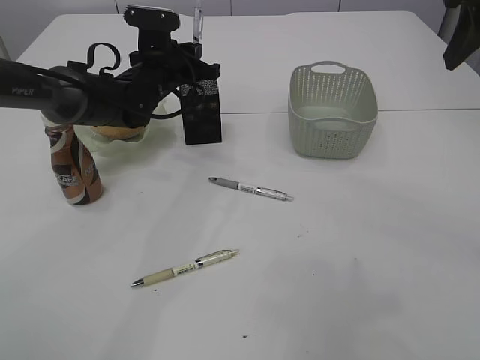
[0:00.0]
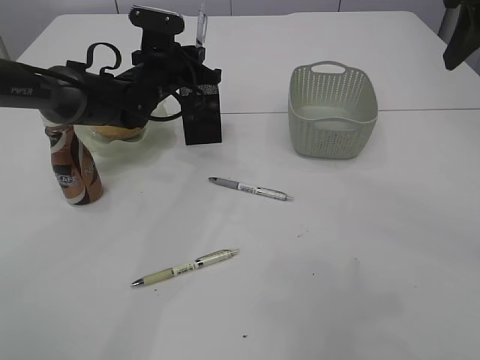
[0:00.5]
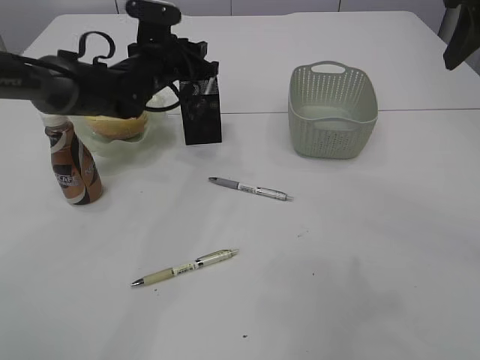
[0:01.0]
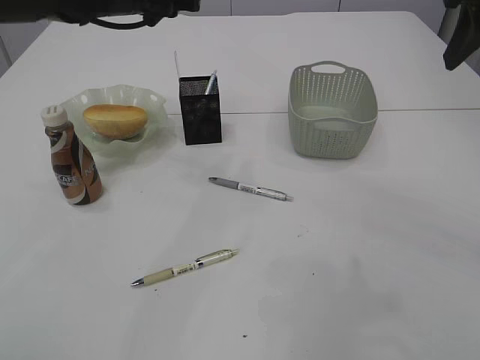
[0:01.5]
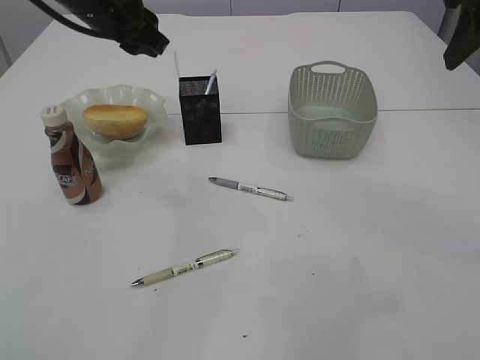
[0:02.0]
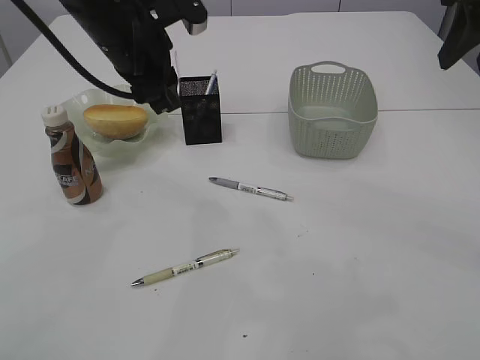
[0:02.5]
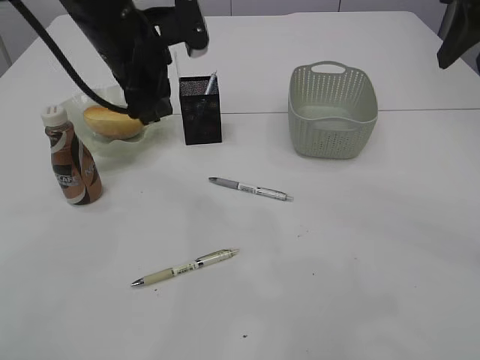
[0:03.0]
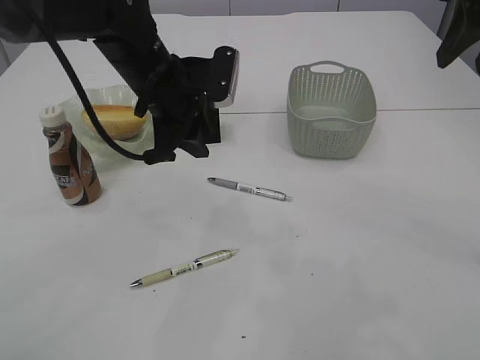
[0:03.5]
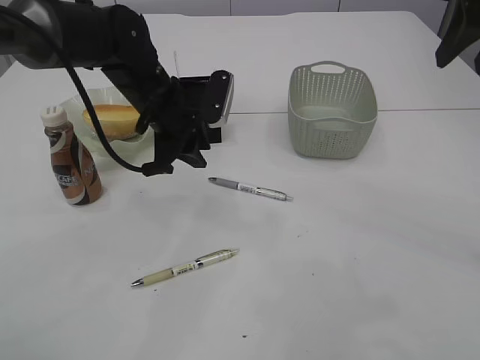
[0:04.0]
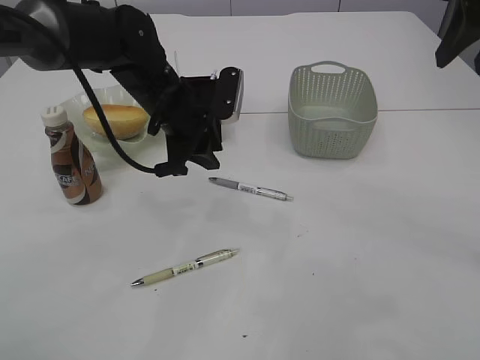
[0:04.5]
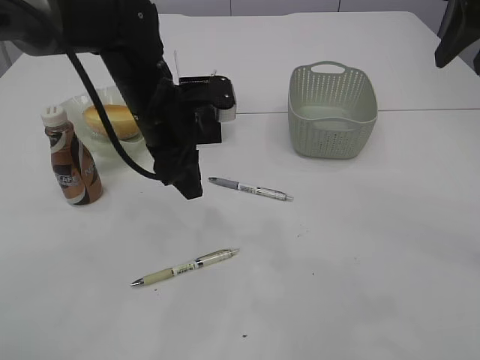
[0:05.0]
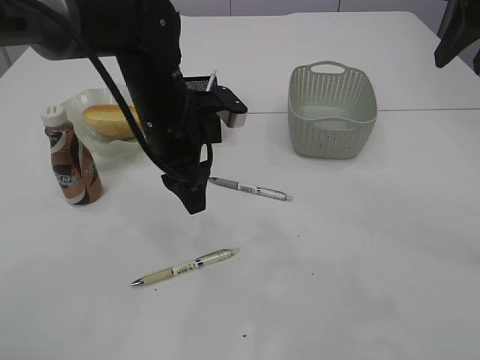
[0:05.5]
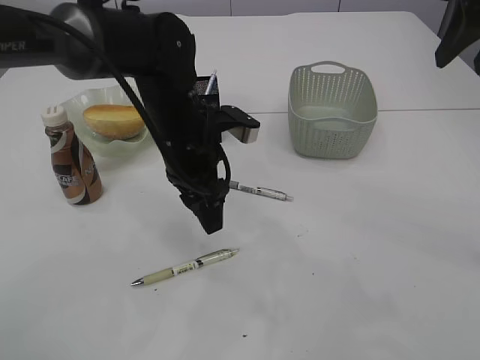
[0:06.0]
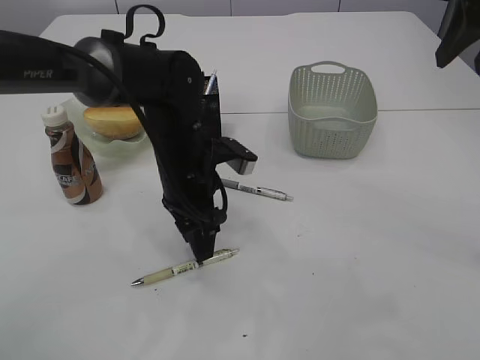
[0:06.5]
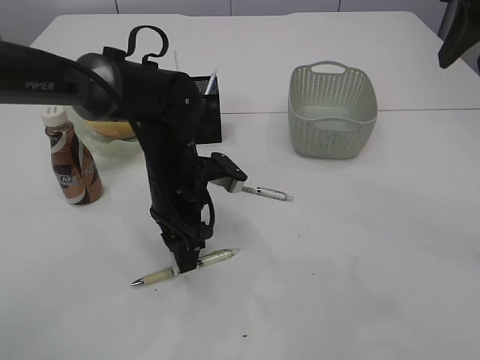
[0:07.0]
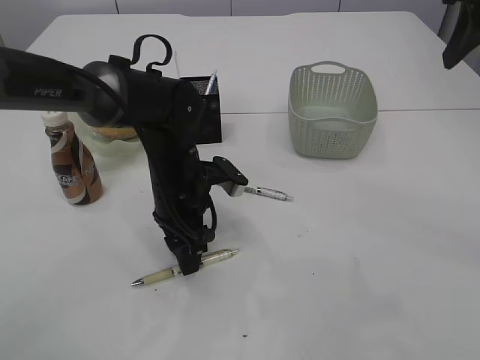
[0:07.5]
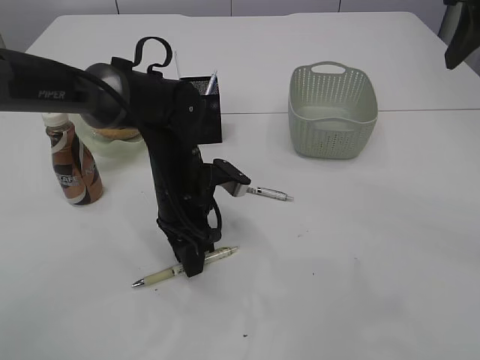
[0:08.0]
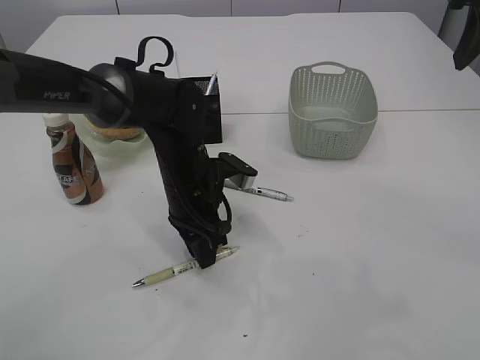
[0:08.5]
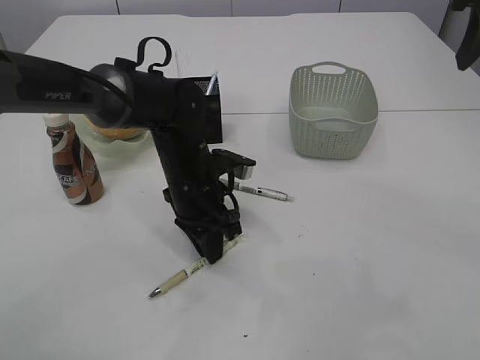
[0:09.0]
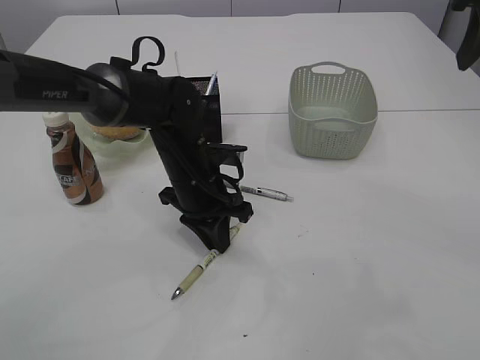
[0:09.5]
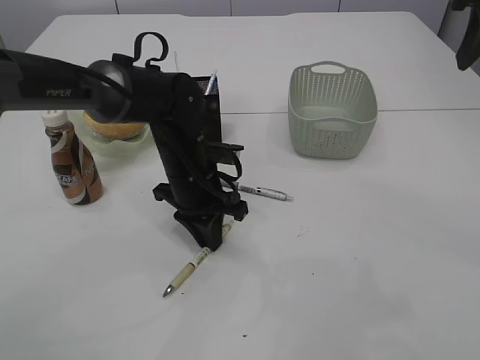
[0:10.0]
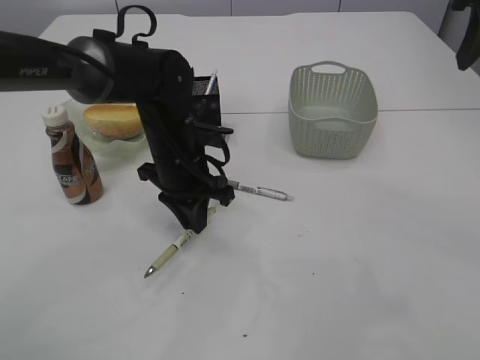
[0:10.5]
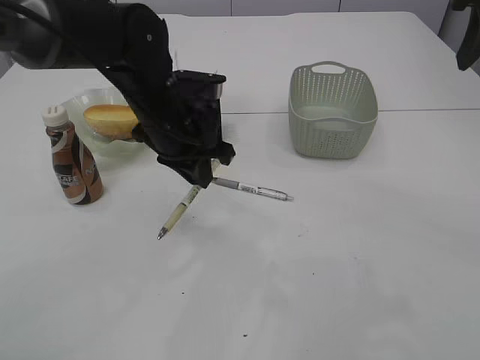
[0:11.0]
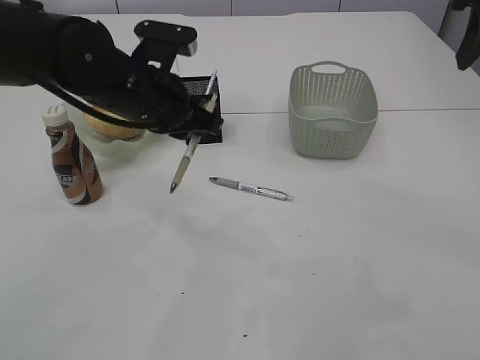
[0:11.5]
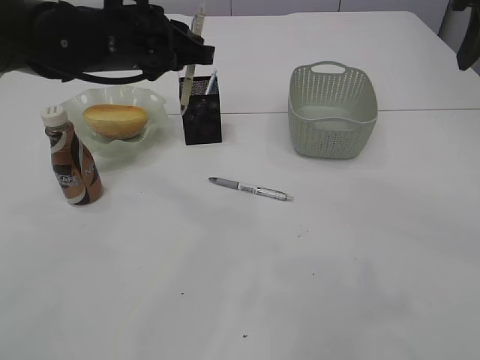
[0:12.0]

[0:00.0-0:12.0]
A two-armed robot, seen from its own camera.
Step, 0:01.5 to 0:11.5: Pick up the pen with left arm.
0:00.0 to 0:02.0: The left gripper heads upward and backward, covering some 15 cm, and opens up.
0:02.0 to 0:04.0: The left gripper shifts about 15 cm downward.
0:04.0 to 0:06.0: The left gripper is displaced backward by approximately 5 cm.
0:06.0 to 0:08.0: The left gripper heads downward, covering approximately 5 cm.
0:08.0 to 0:10.0: The left gripper closes its fingers.
0:10.0 to 0:12.0: The left gripper travels upward by roughly 15 cm.

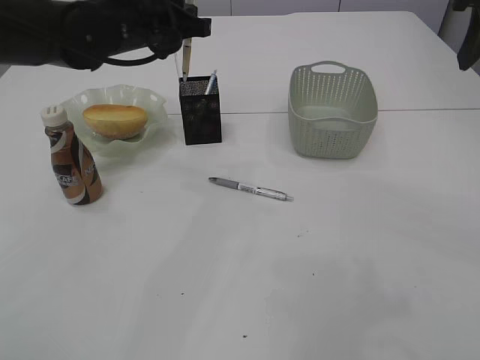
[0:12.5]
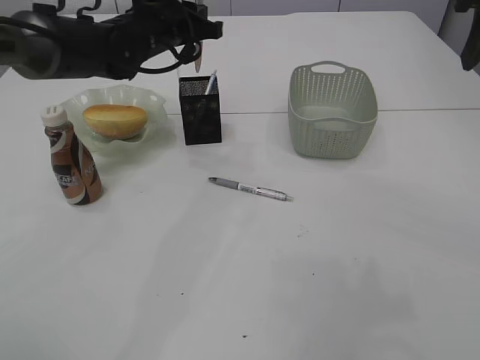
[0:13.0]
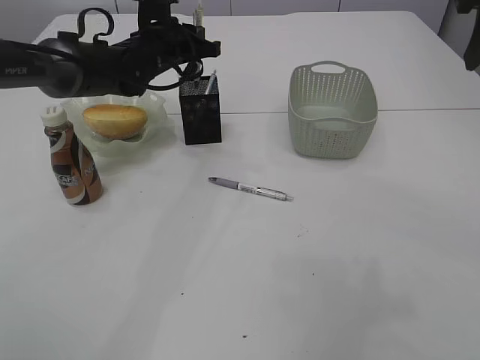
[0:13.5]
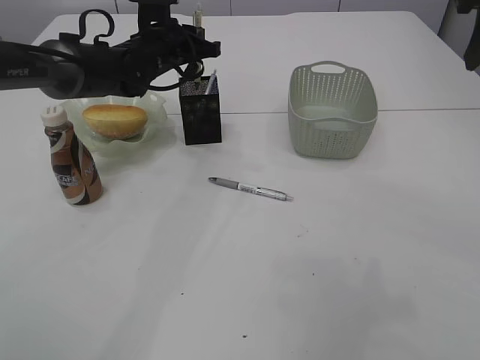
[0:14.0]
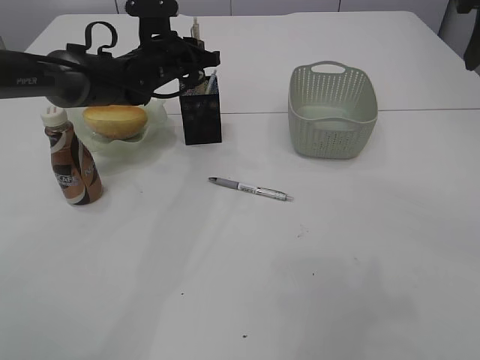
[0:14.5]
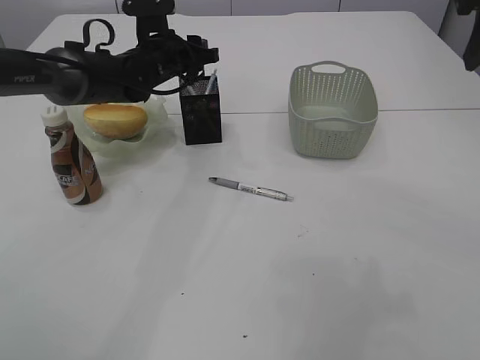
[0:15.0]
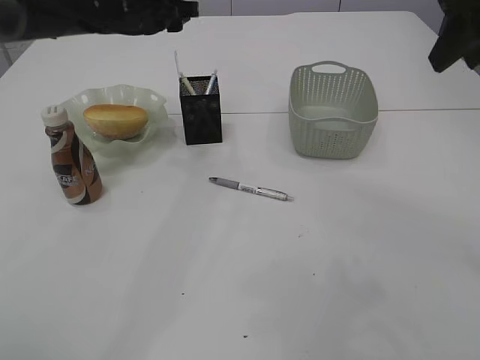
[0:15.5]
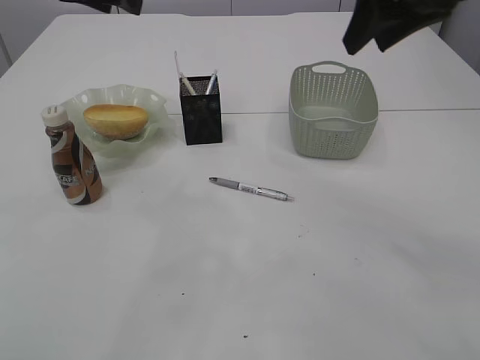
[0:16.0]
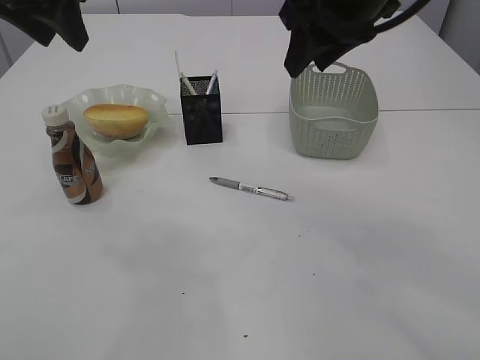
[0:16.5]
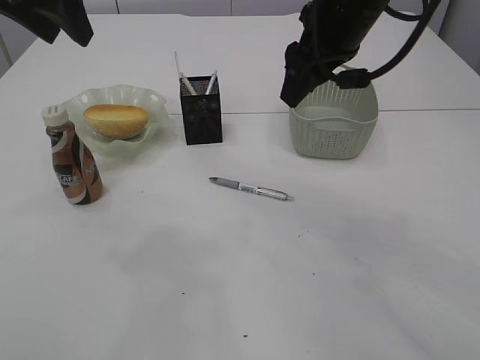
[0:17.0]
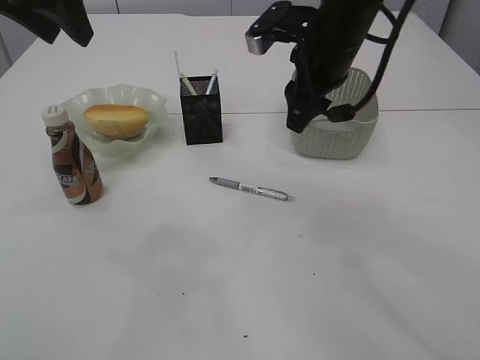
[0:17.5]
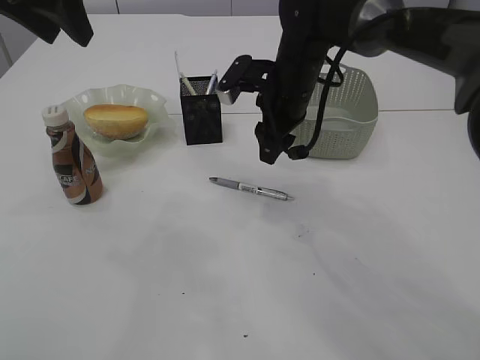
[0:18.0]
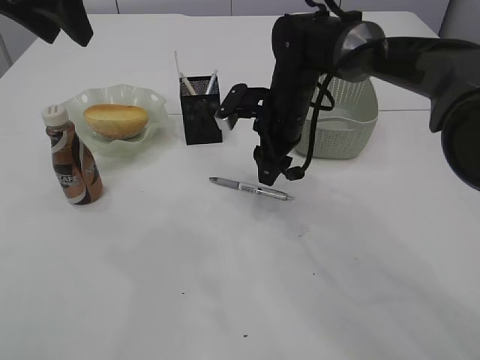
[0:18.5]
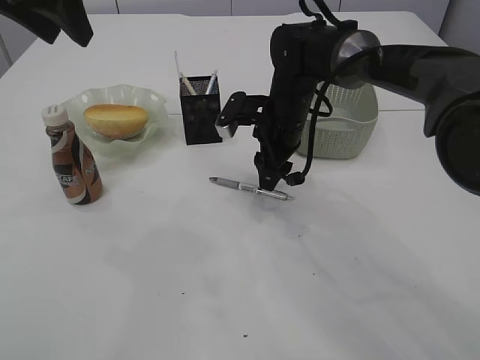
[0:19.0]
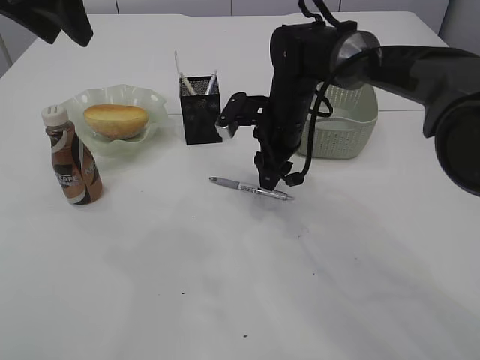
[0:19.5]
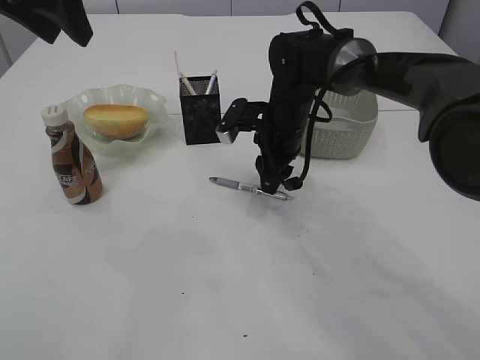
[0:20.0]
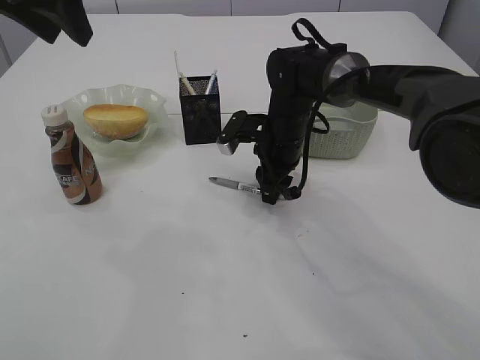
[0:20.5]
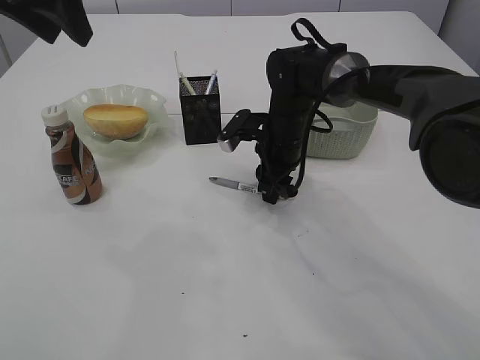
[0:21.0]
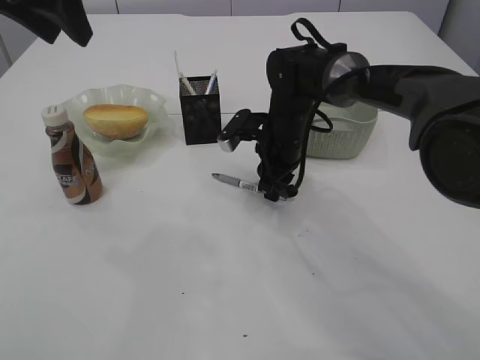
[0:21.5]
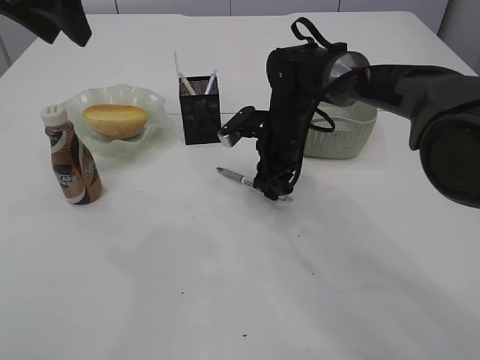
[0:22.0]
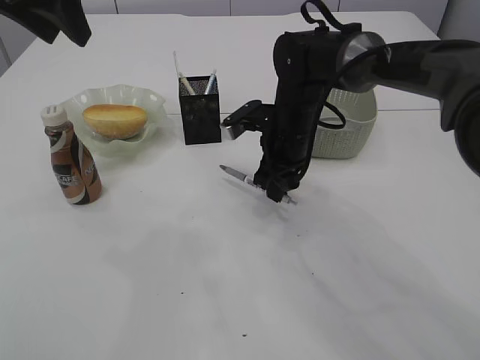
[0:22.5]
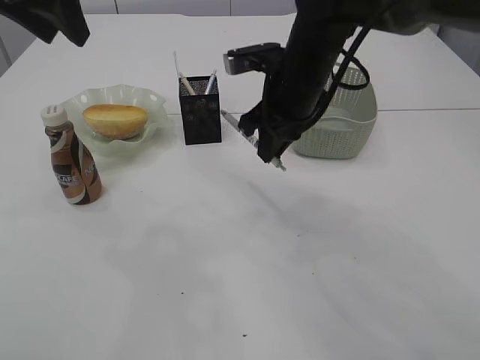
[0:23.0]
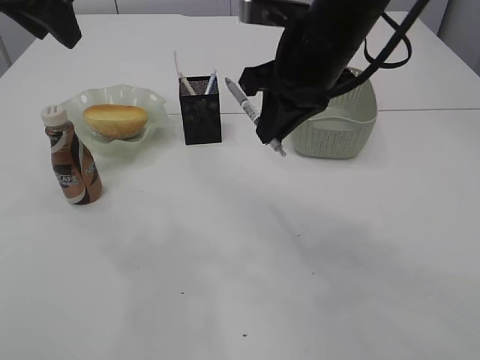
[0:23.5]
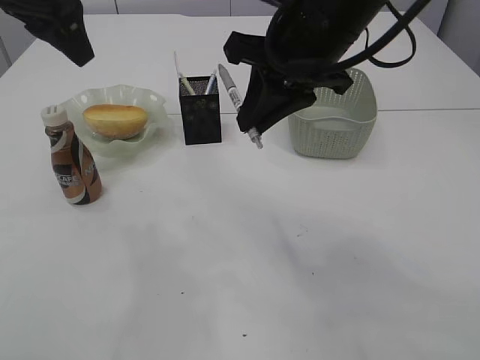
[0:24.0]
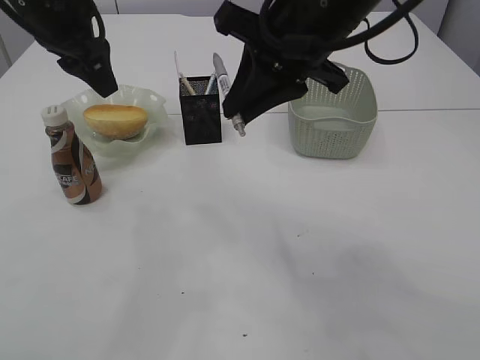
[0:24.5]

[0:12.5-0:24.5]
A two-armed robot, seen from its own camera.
Step, 0:12.5 to 0:15.0: Place the pen into the pen holder.
Step, 0:15.5 to 0:22.5: Pick up the pen with right arm.
0:12.5 to 0:14.5: The left gripper moves downward and forward, roughly 10 cm.
0:14.5 to 0:16.5: The left gripper is displaced upward, backward and to the left by roughly 25 cm, and opens up. Meanwhile the right gripper moves to the left, about 15 cm.
0:16.5 to 0:18.5: The right gripper shifts about 20 cm downward and forward.
0:18.5 to 0:20.5: The grippers move only a little.
0:20.5 to 0:22.5: The right gripper closes.
0:22.5 to 0:24.5: The right gripper heads upward and backward, covering about 20 cm, while the left gripper travels downward by about 5 cm.

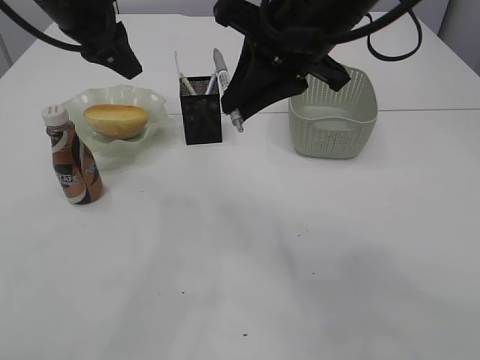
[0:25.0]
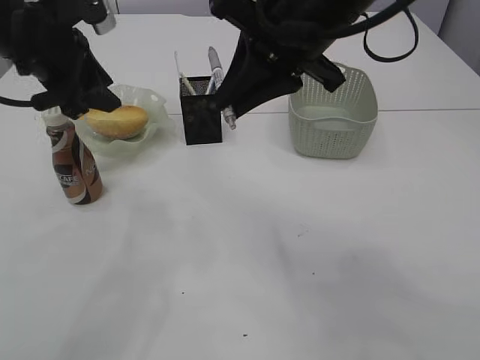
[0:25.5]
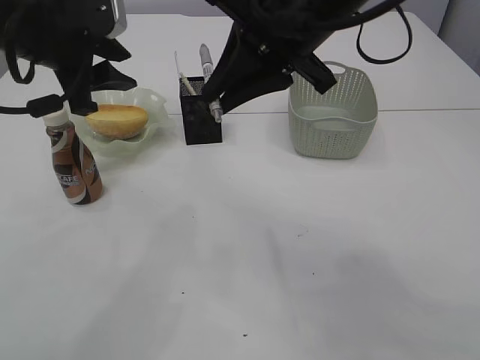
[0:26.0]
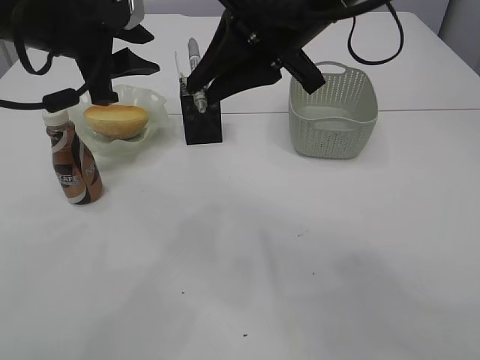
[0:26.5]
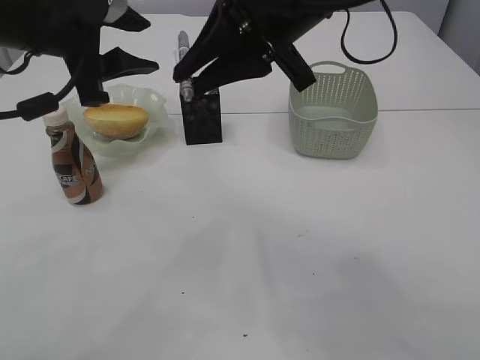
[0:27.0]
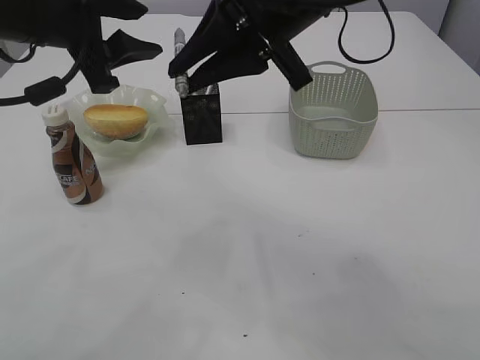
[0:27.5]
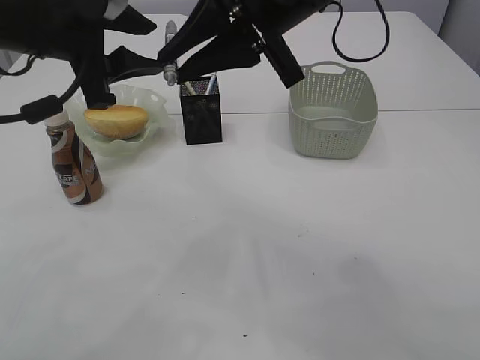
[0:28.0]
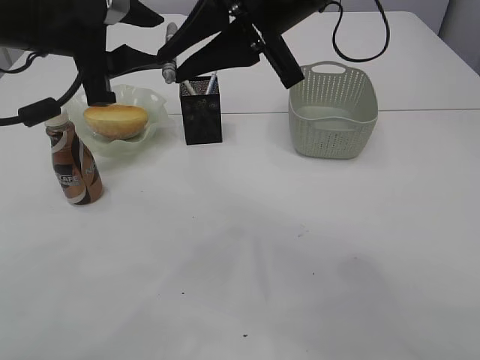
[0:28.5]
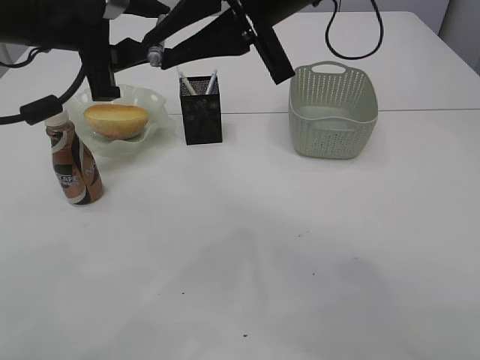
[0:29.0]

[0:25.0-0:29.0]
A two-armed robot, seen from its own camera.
0:25.0 to 0:27.0: The left gripper heads backward, covering about 5 cm.
0:27.0 to 0:29.0: There are only small adjustments of the grippers.
